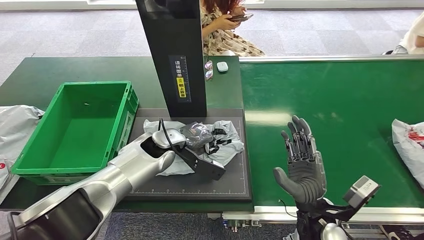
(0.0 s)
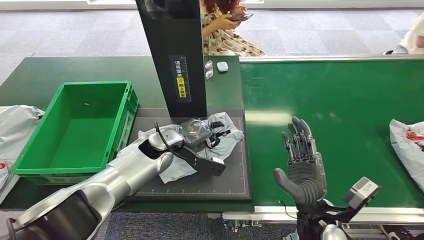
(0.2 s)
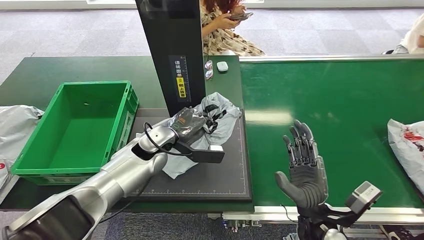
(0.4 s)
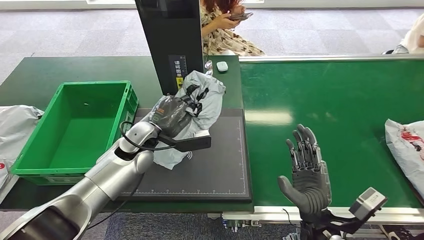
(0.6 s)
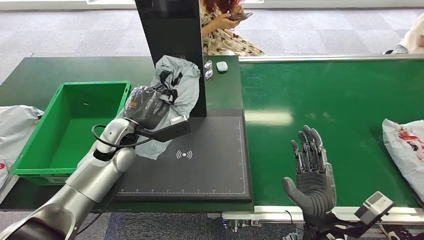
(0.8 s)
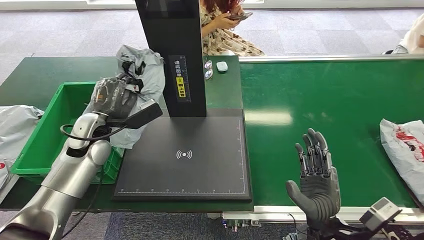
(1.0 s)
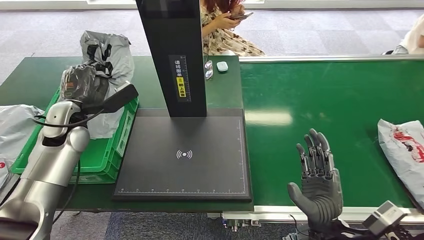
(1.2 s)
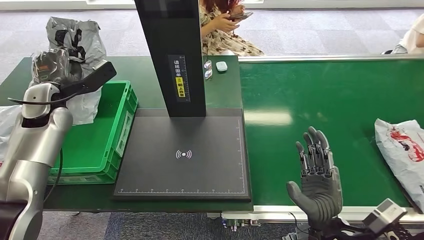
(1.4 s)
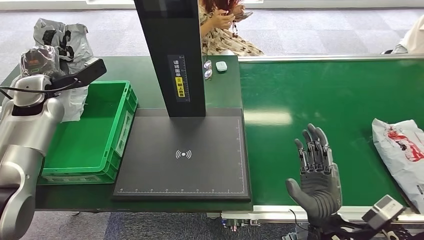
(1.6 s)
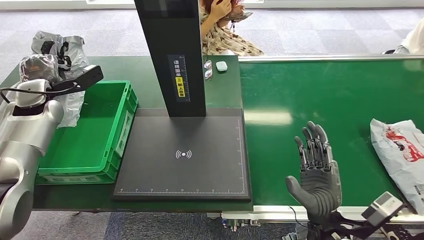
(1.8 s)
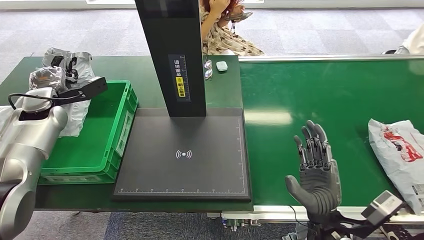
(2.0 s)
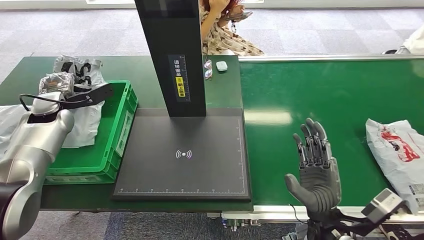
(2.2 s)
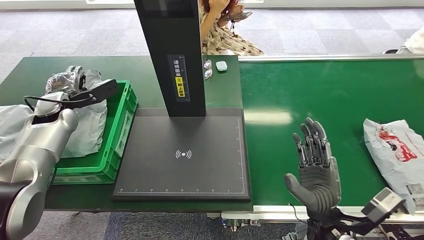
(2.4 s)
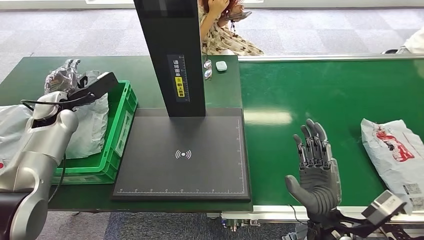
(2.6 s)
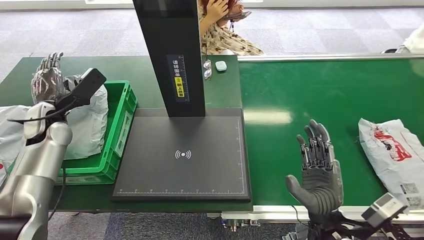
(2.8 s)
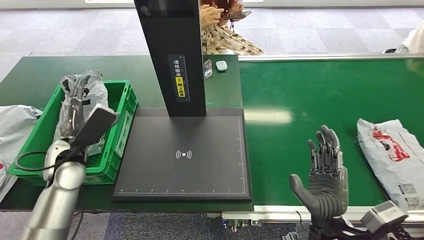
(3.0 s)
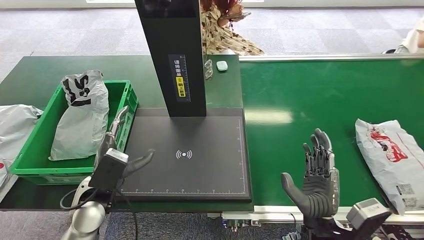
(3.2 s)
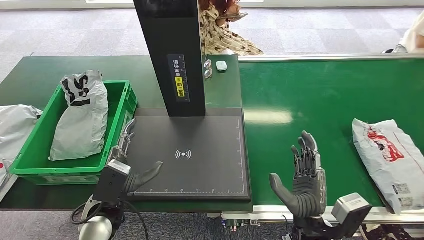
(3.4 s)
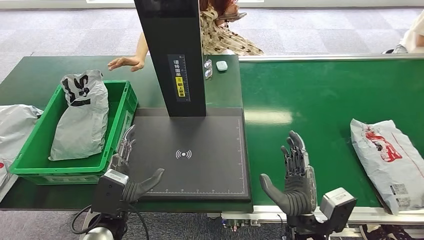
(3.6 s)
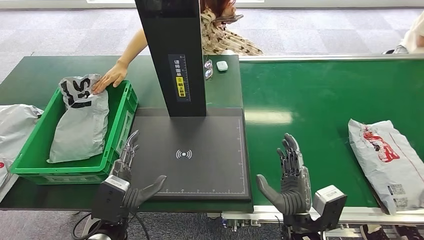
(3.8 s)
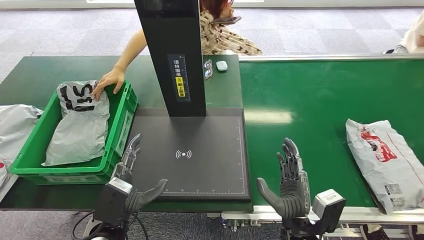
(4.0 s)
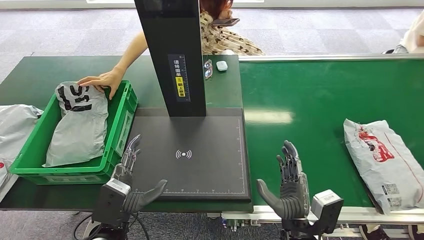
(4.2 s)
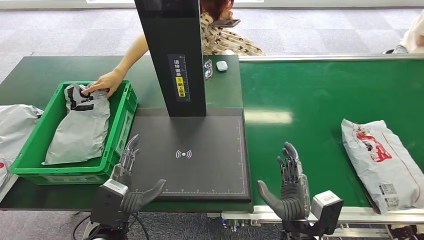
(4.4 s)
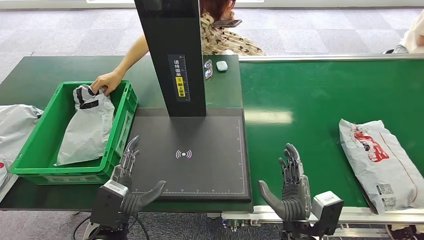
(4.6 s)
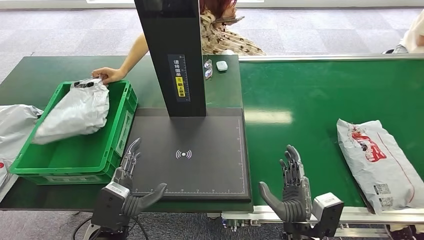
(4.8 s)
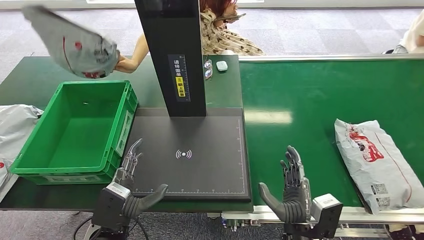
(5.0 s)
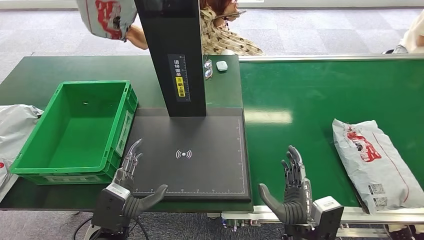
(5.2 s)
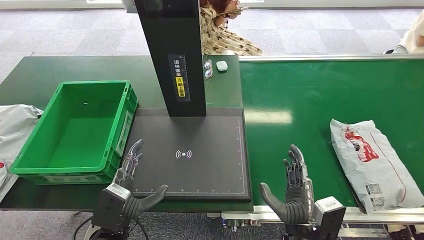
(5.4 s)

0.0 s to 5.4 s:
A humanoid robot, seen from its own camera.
Step, 1.0 to 5.4 s: Place the package into the parcel locker.
4.0 to 5.4 s: The hands stay close to where they were, moving slightly.
